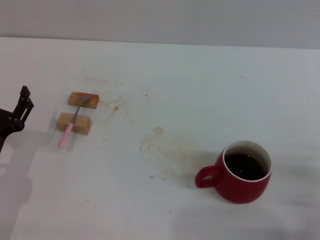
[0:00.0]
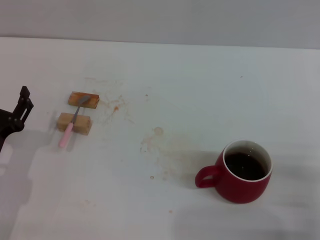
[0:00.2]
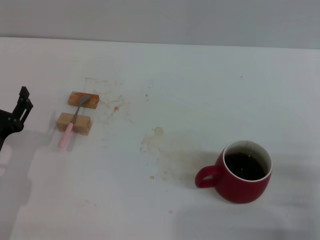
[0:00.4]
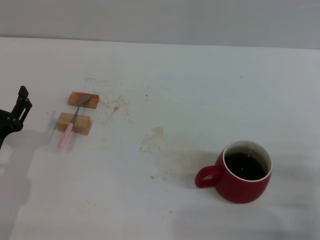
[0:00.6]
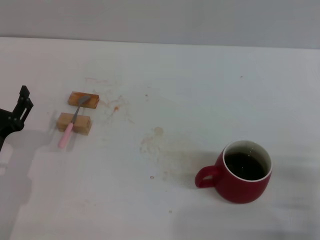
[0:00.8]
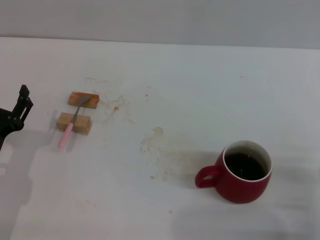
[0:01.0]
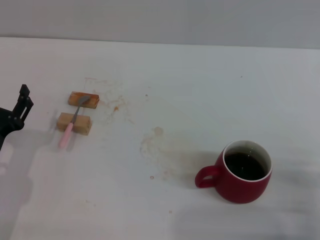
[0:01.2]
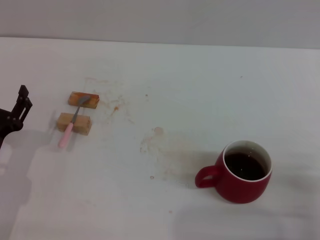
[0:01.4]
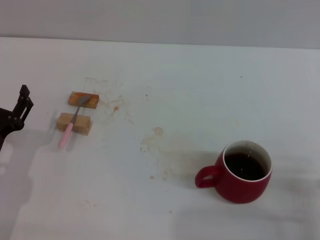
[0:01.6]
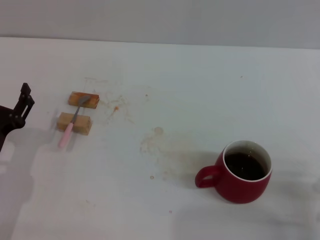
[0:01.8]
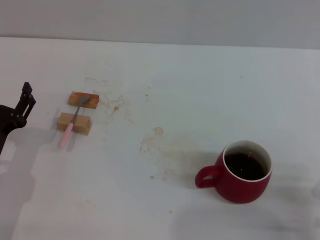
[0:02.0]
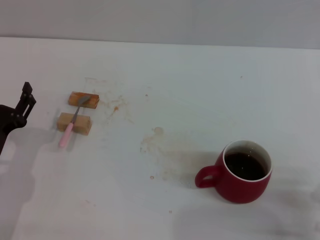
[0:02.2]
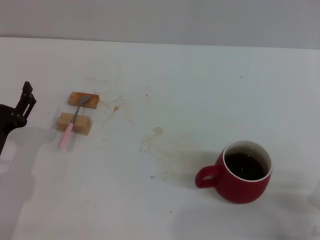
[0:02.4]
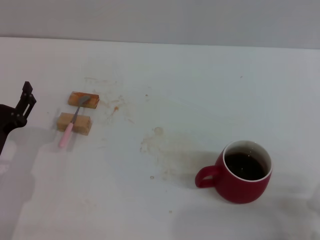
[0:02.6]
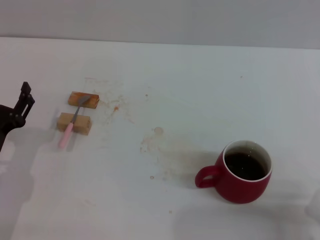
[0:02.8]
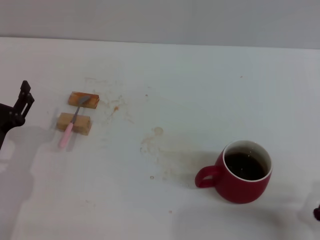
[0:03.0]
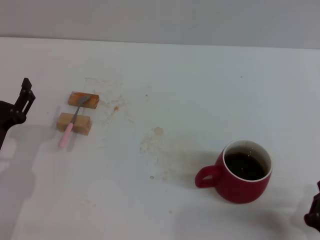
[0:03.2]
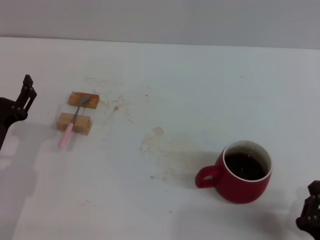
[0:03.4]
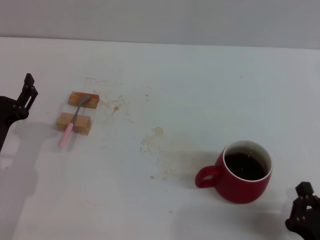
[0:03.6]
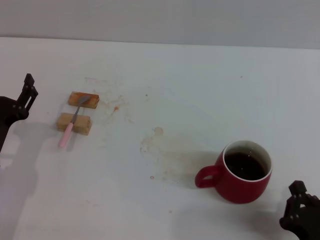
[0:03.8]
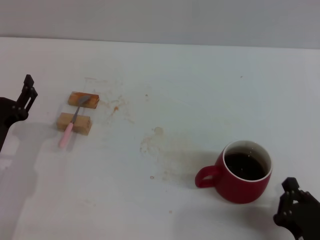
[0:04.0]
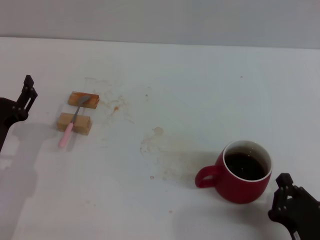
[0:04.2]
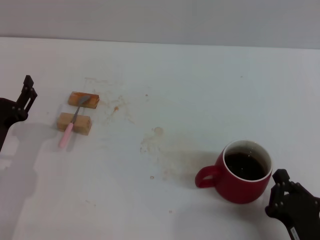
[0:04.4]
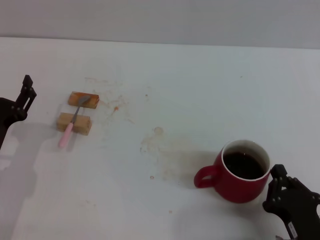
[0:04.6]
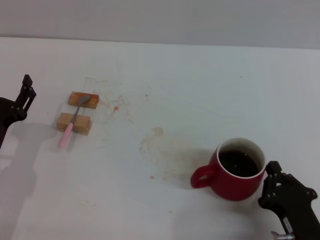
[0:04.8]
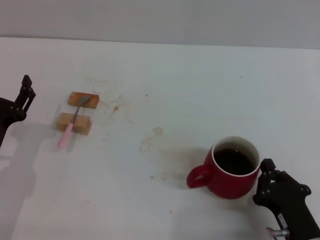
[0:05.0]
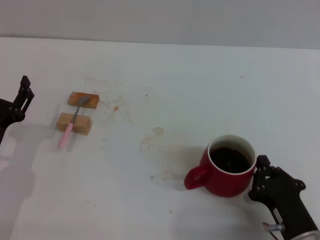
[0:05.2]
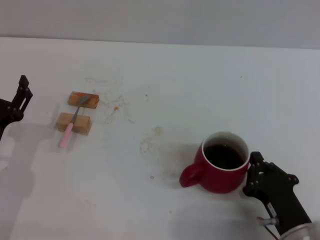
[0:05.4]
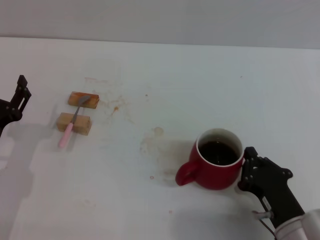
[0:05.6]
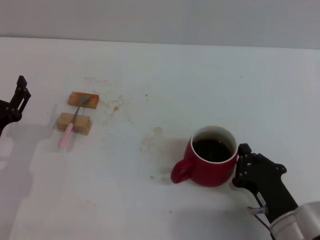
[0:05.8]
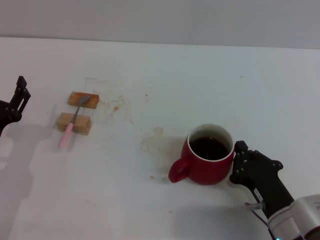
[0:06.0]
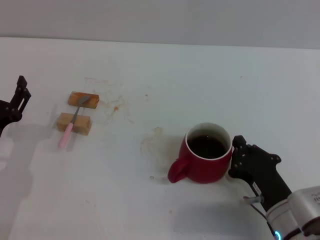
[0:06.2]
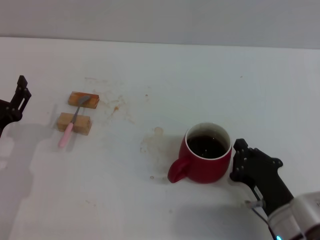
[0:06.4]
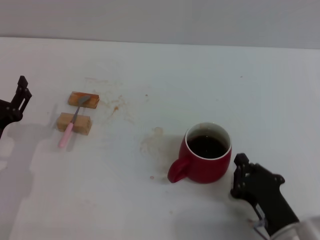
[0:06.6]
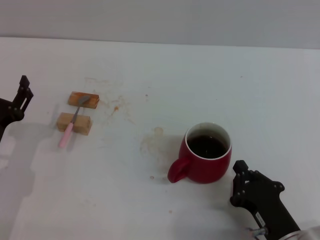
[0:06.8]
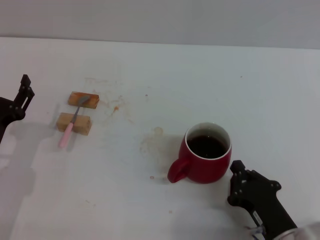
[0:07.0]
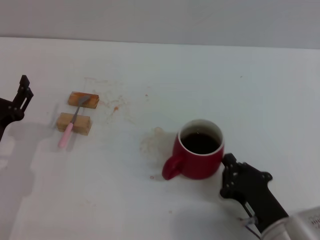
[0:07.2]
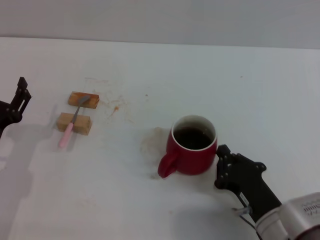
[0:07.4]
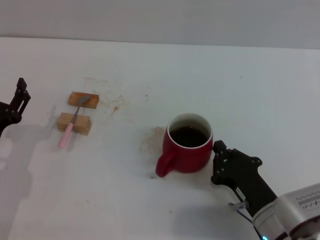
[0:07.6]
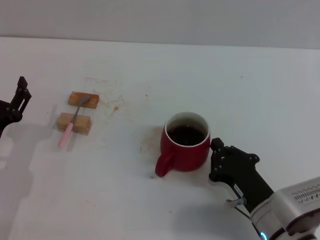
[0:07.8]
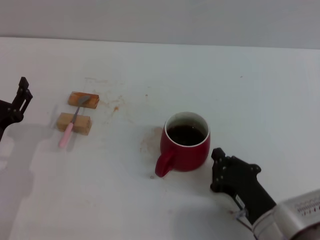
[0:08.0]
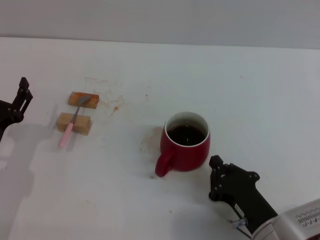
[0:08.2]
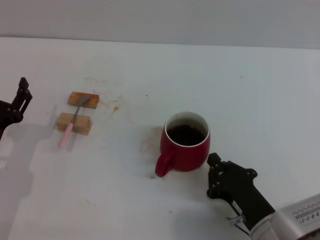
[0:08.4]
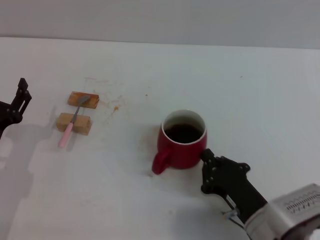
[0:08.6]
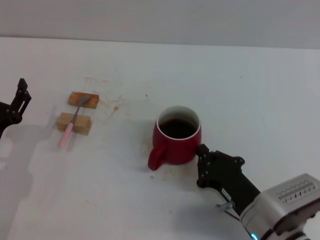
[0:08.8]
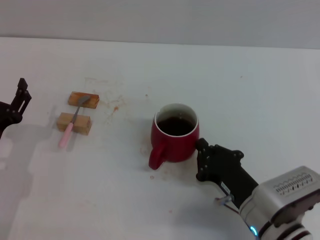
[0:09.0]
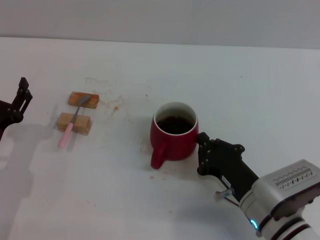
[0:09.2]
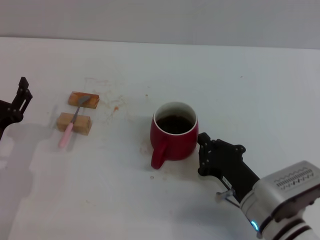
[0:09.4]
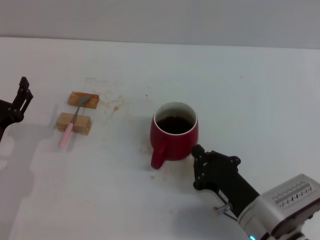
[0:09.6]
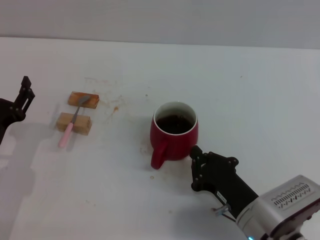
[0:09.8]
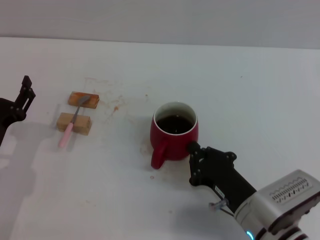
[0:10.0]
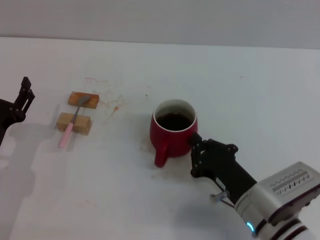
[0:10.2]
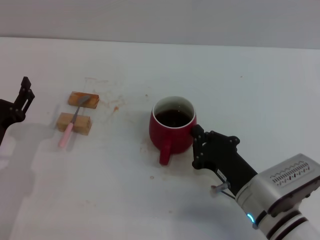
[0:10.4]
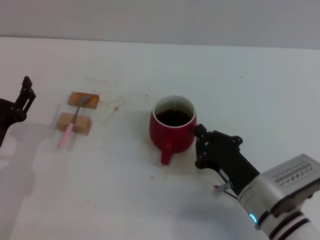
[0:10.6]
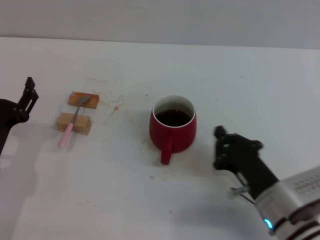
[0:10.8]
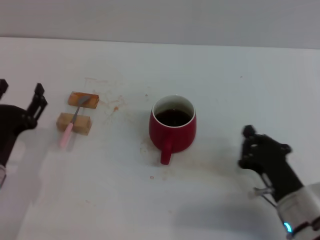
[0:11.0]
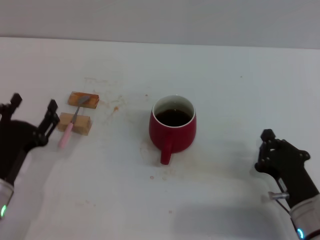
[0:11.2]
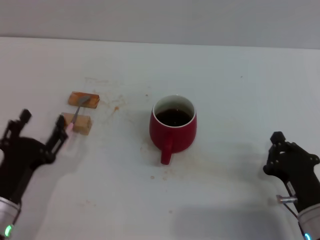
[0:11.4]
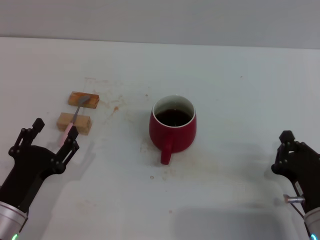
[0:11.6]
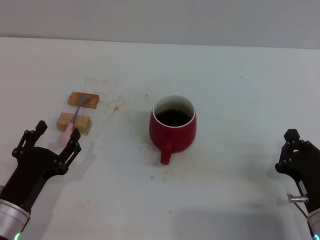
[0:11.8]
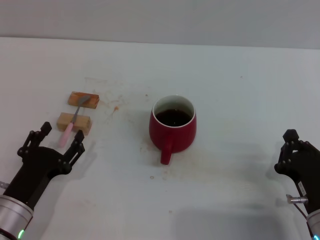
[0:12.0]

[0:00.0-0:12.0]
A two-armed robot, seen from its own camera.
Task of the whole recording: Move the red cup to the center, lift the pink spoon, stir it three times in the cup, and put the spoon into the cup.
Step, 0:00.0 to 0:10.6: Move the cup in the center of the table with right gripper.
0:01.6 to 0:03.0: The right gripper moves backward, roughly 5 cm.
0:03.0 to 0:04.4: The grippers make only small movements.
0:04.4 to 0:06.0: The right gripper is displaced forward by approximately 5 cm.
0:06.0 to 0:10.4: The grippers stay close to where they were, moving slightly.
0:10.4 to 0:12.0: The right gripper shifts approximately 10 cm to the right; the left gripper heads backward, covering about 5 cm.

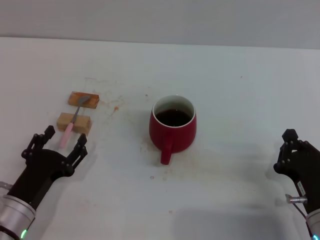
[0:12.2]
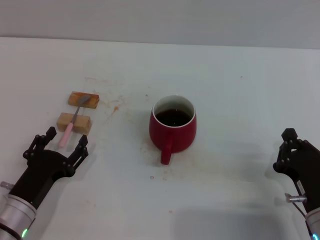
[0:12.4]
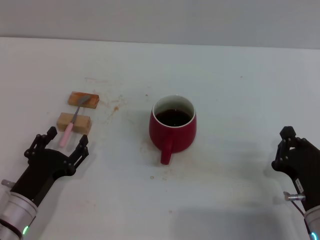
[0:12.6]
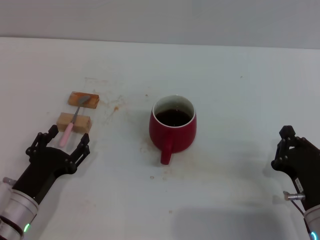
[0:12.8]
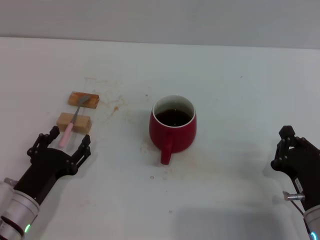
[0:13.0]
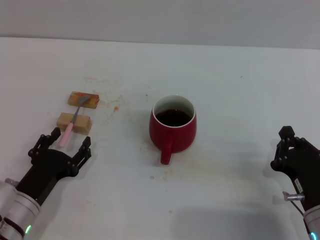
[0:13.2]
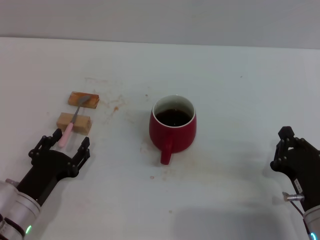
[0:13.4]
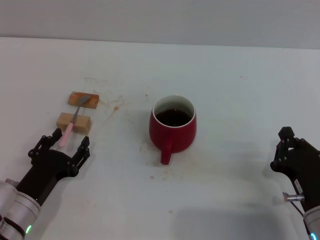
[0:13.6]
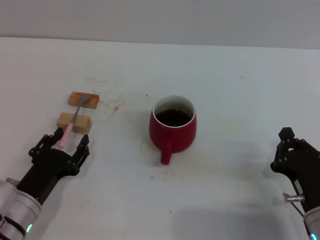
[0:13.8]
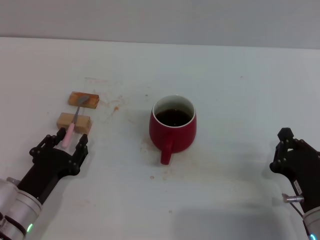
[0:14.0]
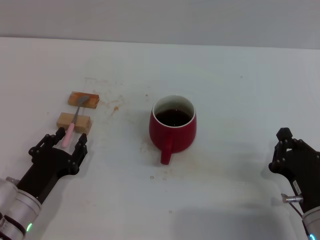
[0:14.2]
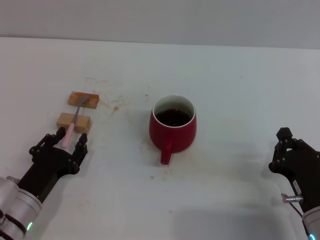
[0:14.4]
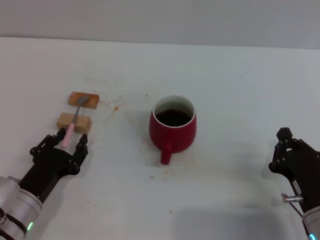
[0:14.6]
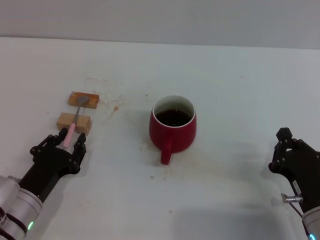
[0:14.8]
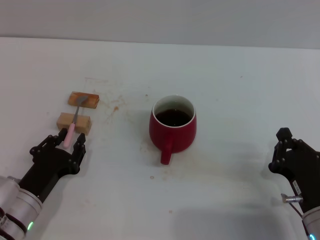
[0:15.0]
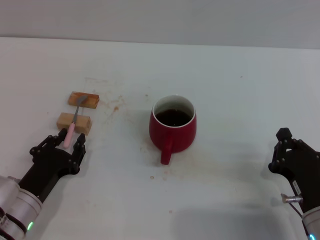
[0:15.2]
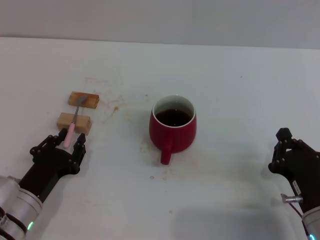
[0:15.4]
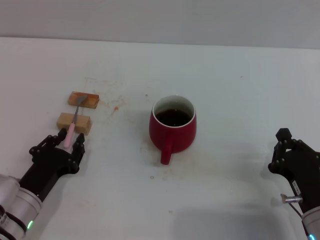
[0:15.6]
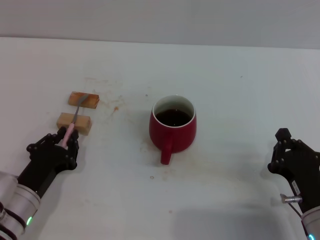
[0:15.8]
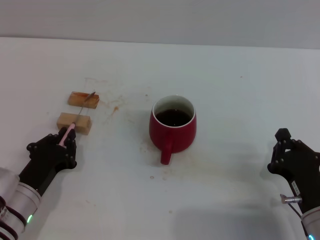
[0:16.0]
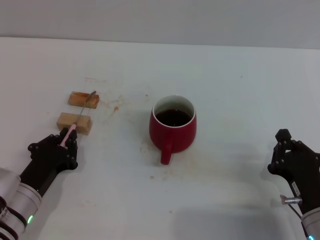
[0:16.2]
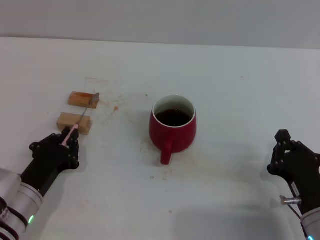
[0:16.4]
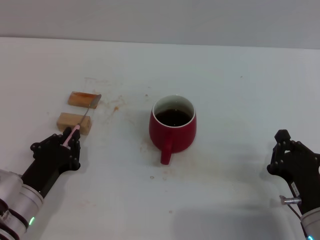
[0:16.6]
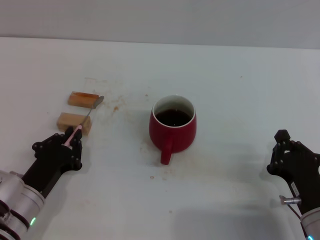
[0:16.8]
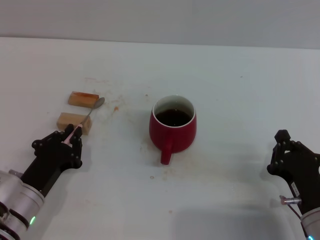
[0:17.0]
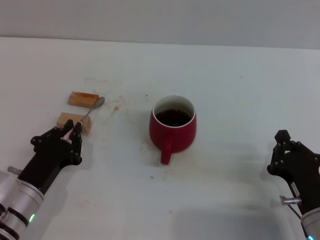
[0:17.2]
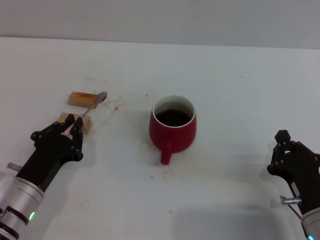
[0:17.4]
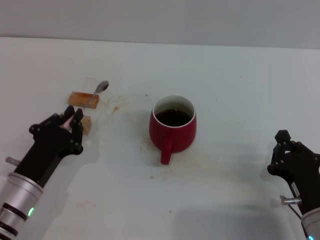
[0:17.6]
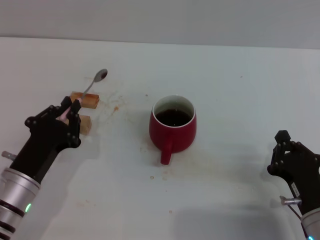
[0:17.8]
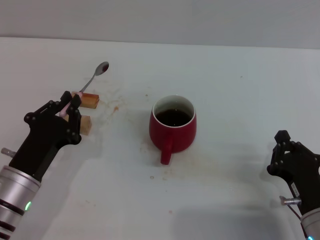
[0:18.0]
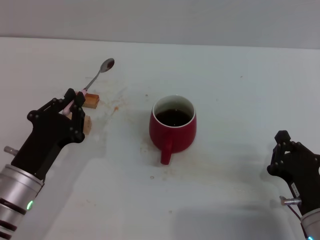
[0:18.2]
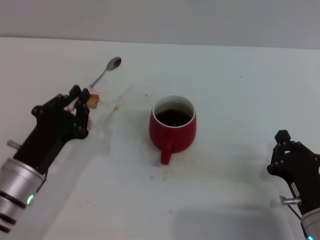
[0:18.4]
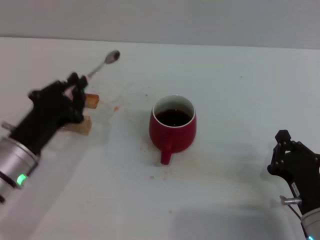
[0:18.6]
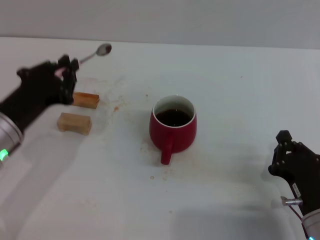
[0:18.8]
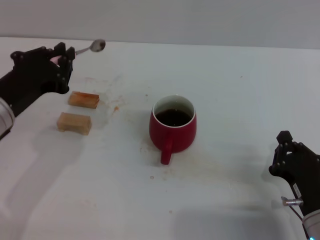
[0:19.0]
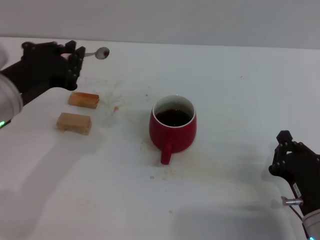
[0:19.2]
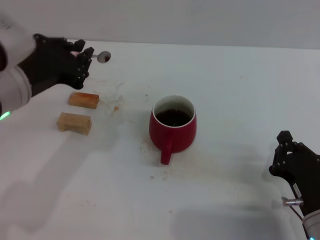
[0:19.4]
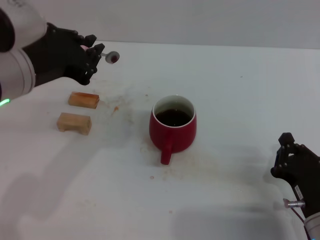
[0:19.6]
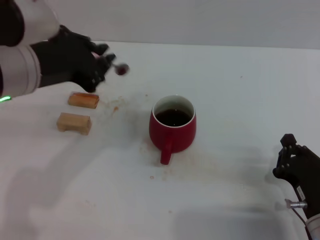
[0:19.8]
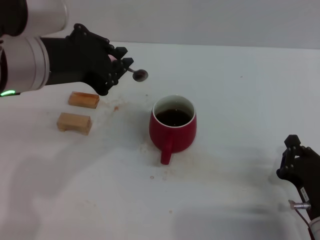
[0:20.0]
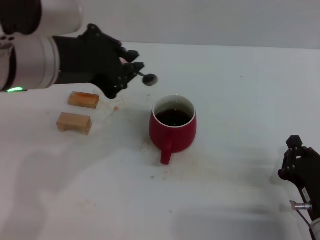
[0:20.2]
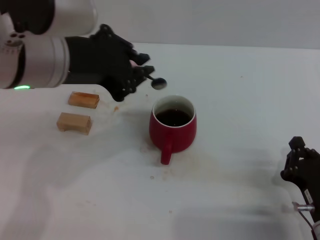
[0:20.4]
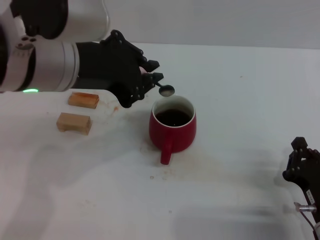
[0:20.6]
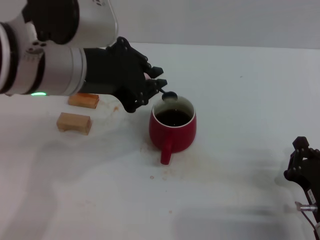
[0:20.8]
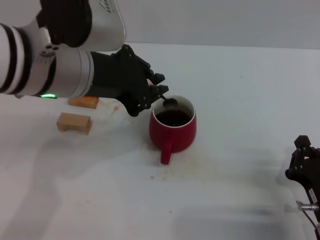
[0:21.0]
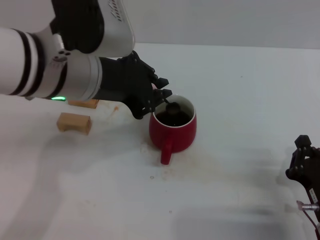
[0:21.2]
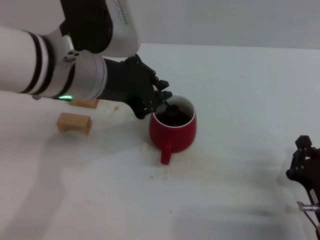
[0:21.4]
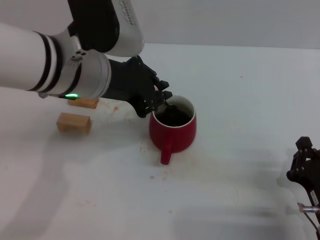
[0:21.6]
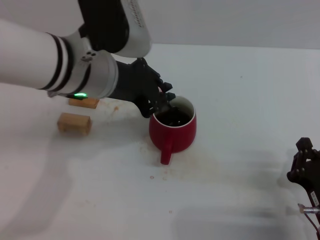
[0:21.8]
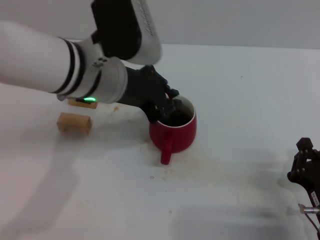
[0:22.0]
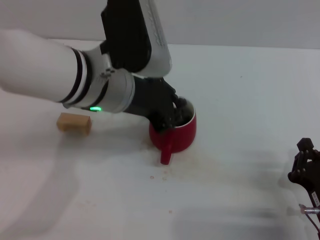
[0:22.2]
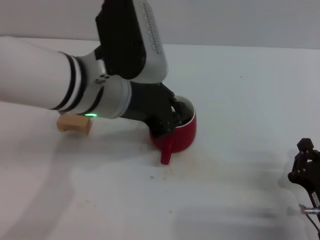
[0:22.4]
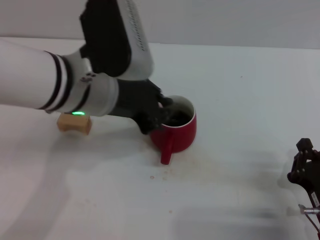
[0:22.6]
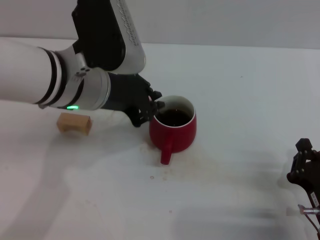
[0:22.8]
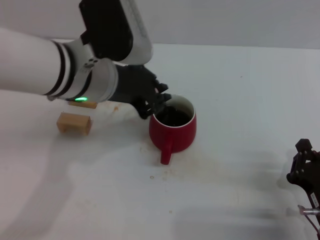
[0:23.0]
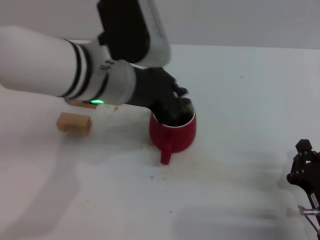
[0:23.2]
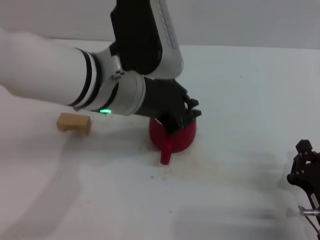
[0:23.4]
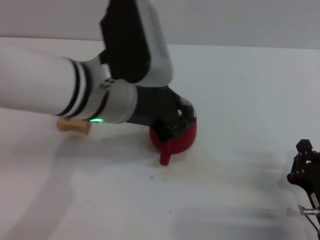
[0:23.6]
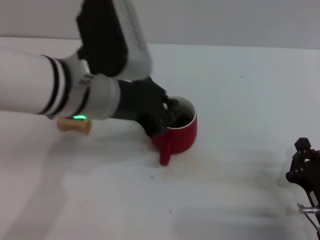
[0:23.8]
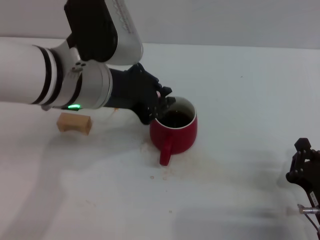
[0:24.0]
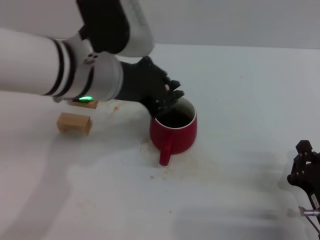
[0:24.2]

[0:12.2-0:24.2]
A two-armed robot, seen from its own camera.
Task of the whole recording: Move the red cup to the center, lift the pink spoon, stir it three times in the cup, and put the spoon into the cup.
Step, 0:12.2 to 0:16.6: Grasp the spoon with left gripper.
0:12.2 to 0:13.8: The grippers move only a little.
0:13.8 to 0:15.2: The left gripper closes its fingers.
0:15.2 to 0:16.6: The left gripper closes.
0:16.6 to 0:18.2: There are only small adjustments of the grippers.
0:18.2 to 0:19.8: The left gripper heads upward, covering approximately 20 cm.
0:19.8 to 0:21.2: The left gripper shifts about 5 cm to the right.
0:21.2 to 0:24.2: The grippers make only small movements.
